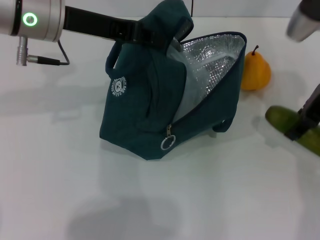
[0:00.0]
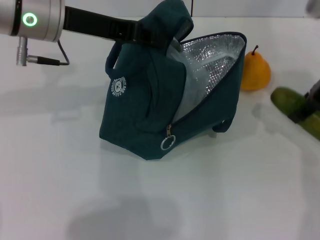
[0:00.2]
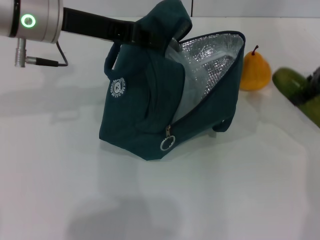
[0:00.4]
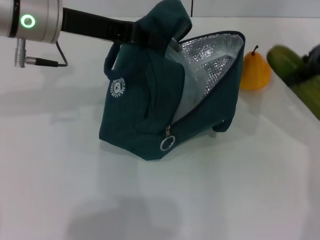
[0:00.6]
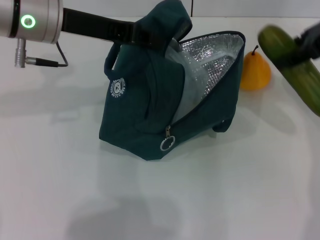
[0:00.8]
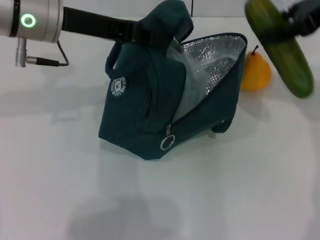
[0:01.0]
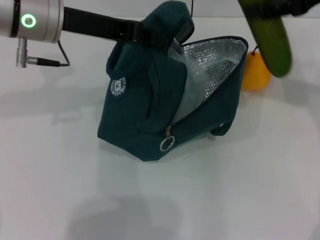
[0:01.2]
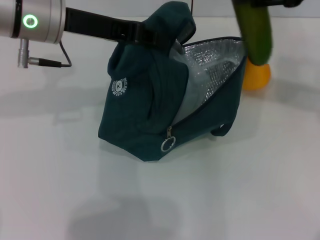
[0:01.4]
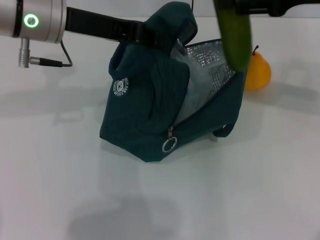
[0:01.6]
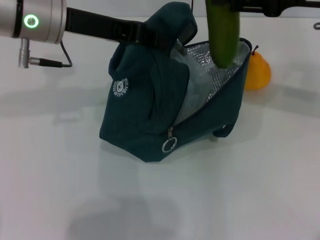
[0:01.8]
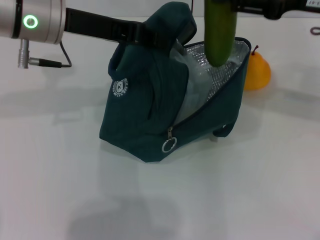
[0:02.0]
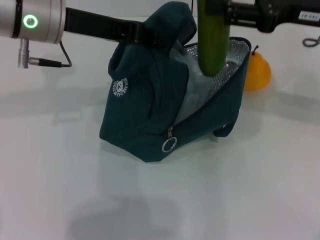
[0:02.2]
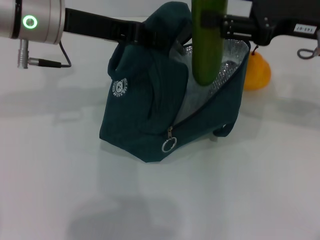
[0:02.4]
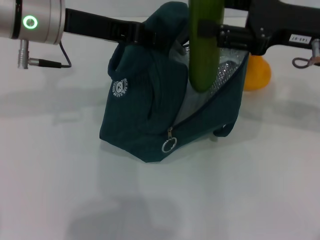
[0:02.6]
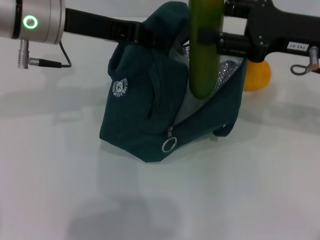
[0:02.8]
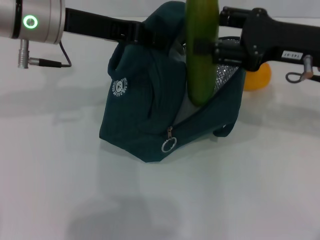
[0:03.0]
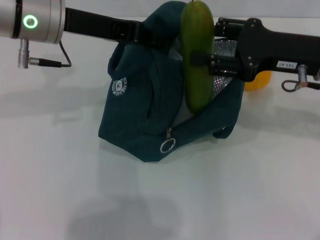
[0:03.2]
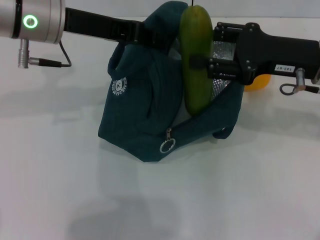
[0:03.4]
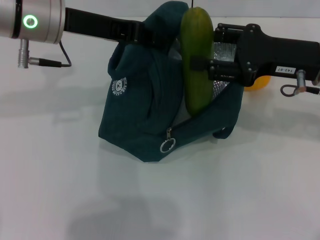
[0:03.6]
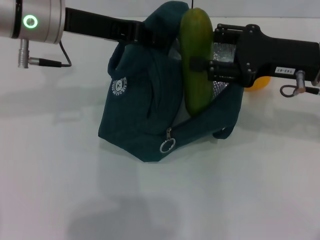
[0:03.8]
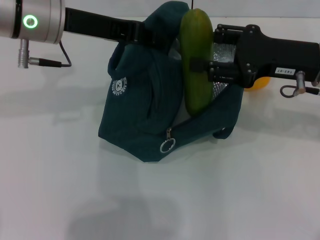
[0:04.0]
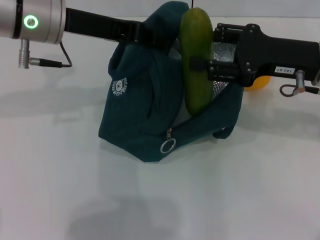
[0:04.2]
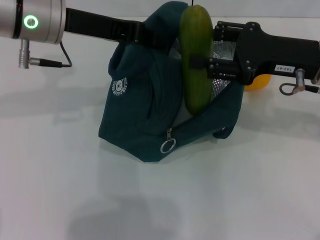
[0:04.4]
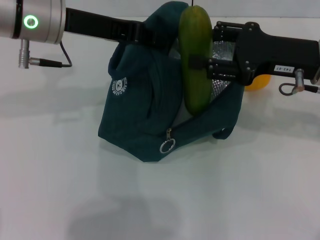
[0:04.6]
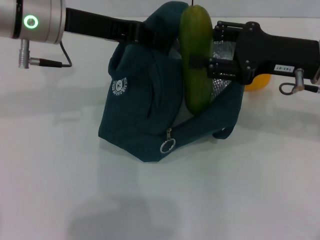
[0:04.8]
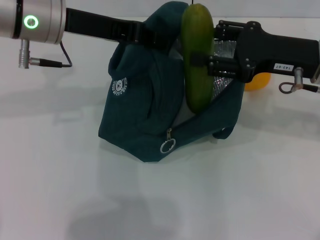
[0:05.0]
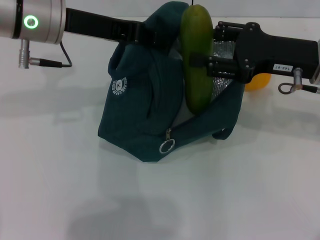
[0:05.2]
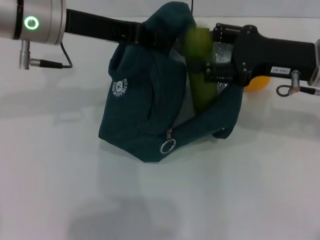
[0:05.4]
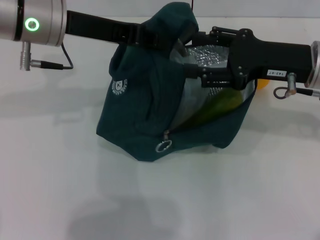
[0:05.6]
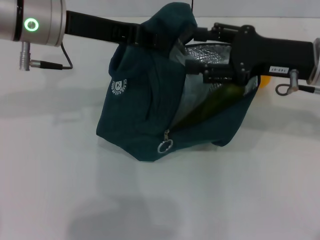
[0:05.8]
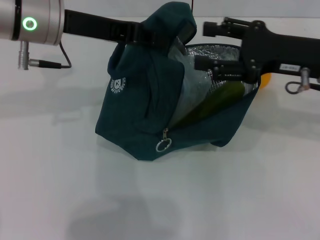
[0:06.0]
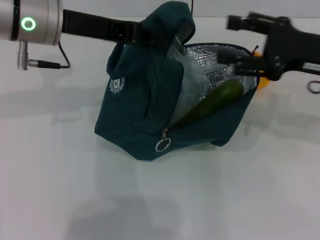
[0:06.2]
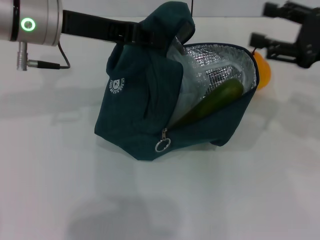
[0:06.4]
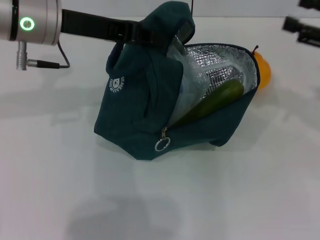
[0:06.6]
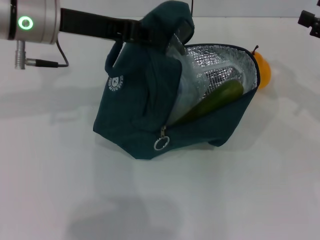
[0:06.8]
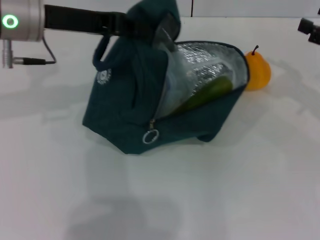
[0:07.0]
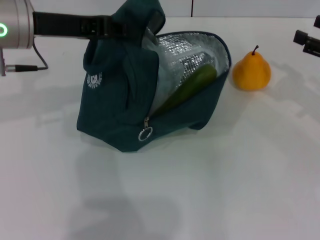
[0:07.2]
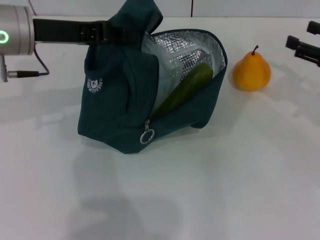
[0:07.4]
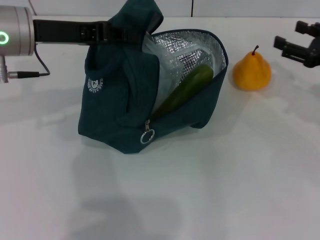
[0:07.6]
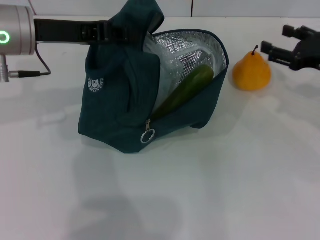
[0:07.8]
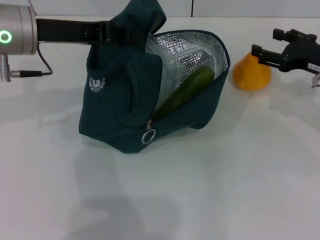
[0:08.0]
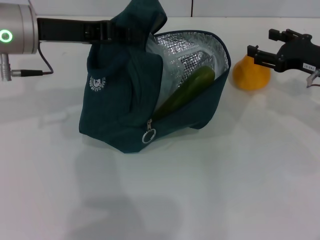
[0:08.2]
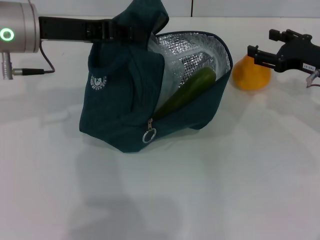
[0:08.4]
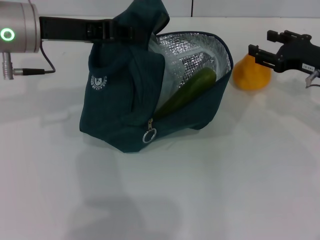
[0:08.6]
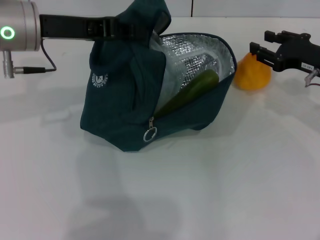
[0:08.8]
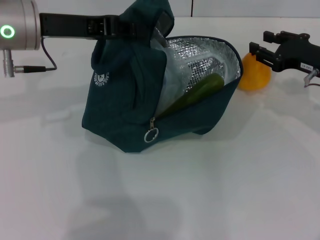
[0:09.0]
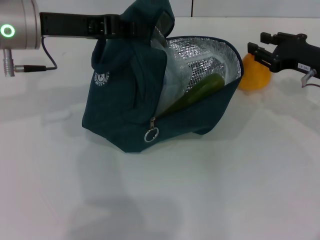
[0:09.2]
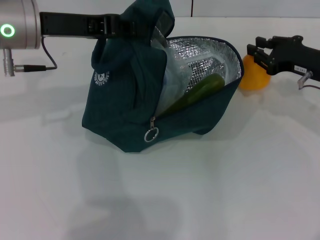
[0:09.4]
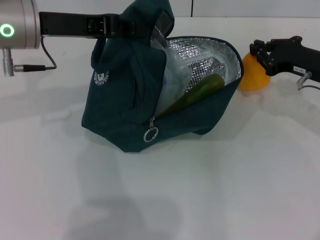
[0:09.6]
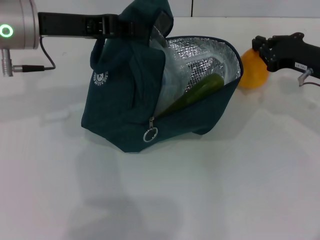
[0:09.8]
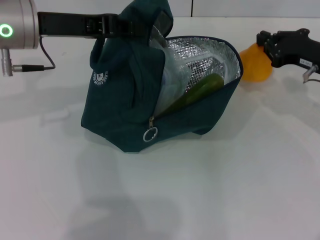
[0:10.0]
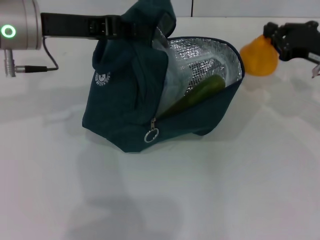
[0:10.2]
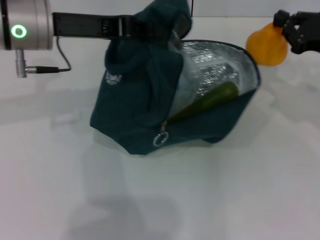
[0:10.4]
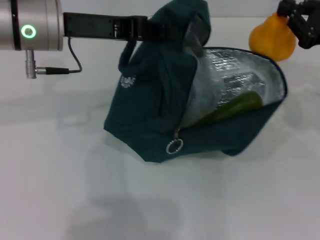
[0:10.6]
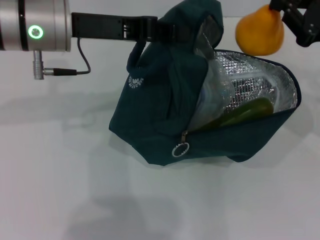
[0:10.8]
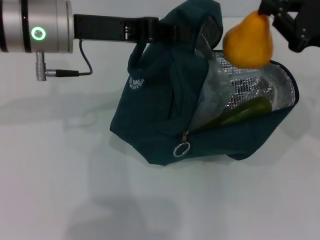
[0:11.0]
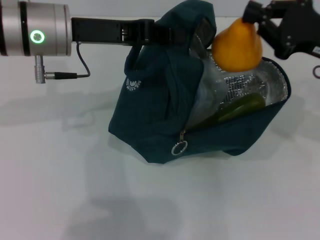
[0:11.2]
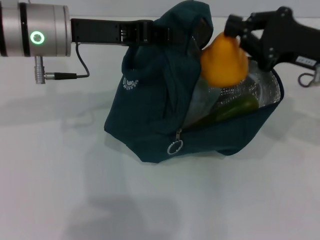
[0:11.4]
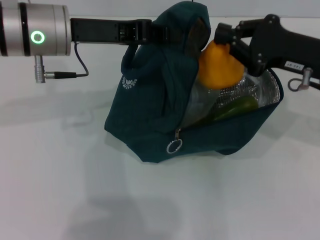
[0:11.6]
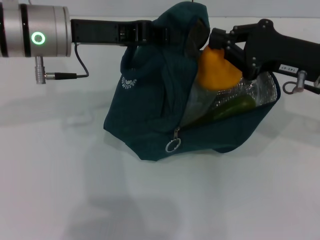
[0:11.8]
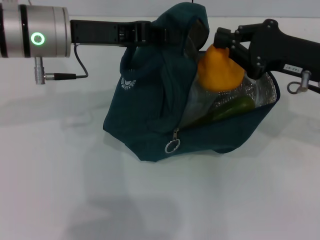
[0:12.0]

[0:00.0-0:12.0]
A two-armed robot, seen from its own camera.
Step, 0:00.0 to 0:05.4: Put the cucumber into the lunch bag with your right hand.
Step, 0:05.6 to 0:09.6: Grab the pear with your right hand.
0:00.0 to 0:01.6: The right gripper moves upward, some 5 cm.
0:01.6 to 0:03.0: The right gripper travels downward by about 10 cm.
0:03.0 to 0:04.4: The grippers stay close to where they were, moving slightly.
0:04.4 to 0:06.0: Both grippers stay about where they are.
0:06.0 to 0:07.6: The right gripper goes roughly 10 cm to the right and downward.
0:07.6 to 0:09.0: The grippers stay close to where they were, moving slightly.
0:09.0 to 0:10.4: The right gripper closes its fingers.
0:10.4 to 0:12.0: The right gripper shifts roughly 5 cm to the left.

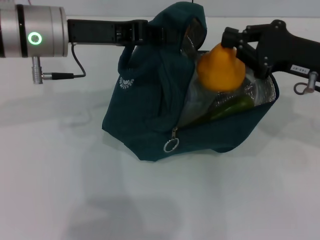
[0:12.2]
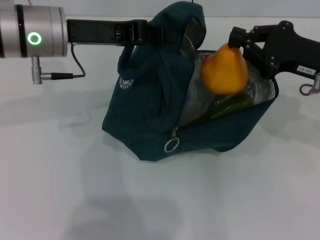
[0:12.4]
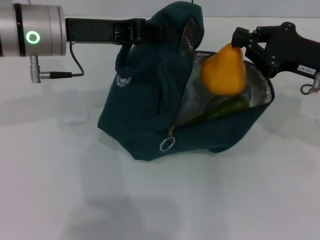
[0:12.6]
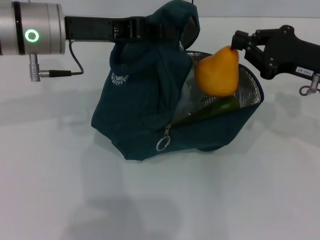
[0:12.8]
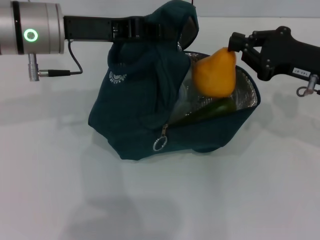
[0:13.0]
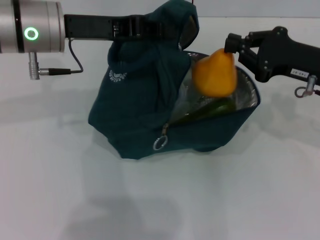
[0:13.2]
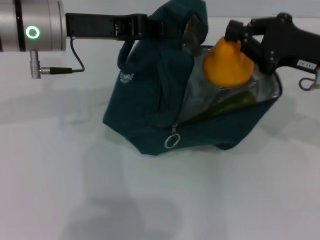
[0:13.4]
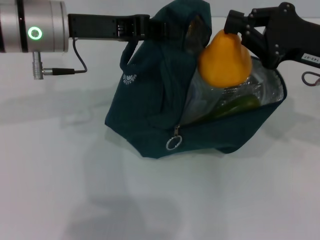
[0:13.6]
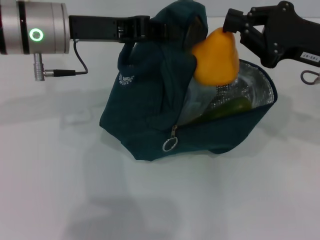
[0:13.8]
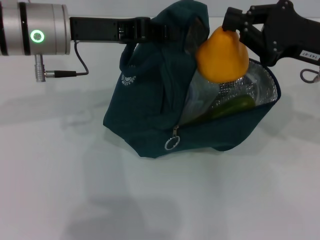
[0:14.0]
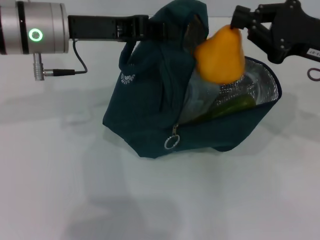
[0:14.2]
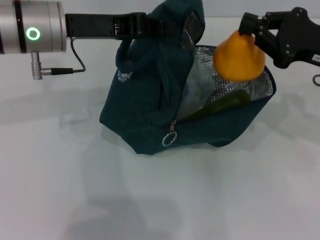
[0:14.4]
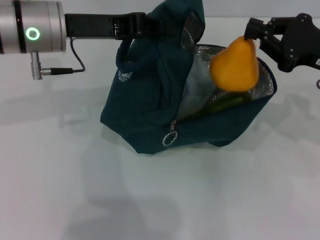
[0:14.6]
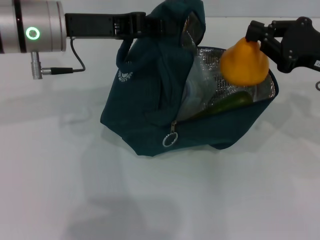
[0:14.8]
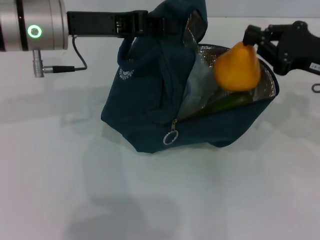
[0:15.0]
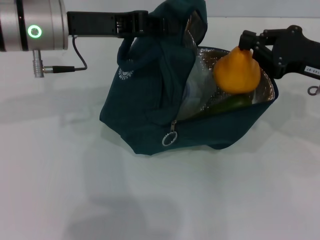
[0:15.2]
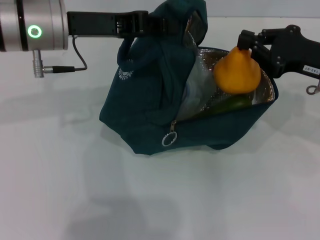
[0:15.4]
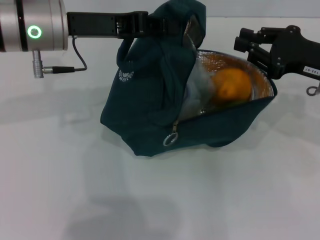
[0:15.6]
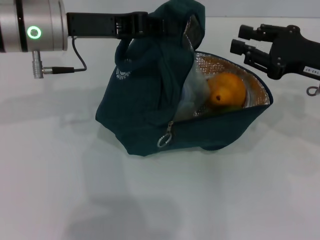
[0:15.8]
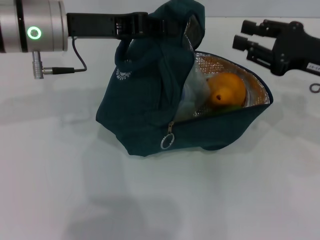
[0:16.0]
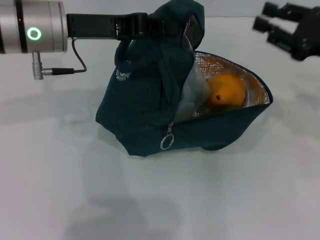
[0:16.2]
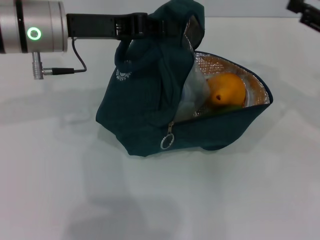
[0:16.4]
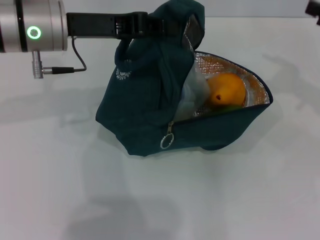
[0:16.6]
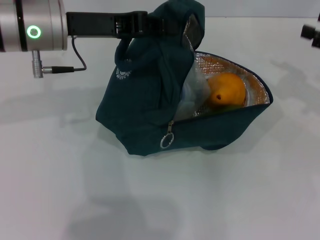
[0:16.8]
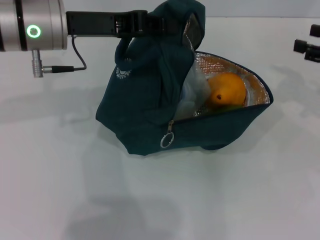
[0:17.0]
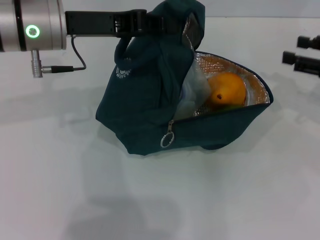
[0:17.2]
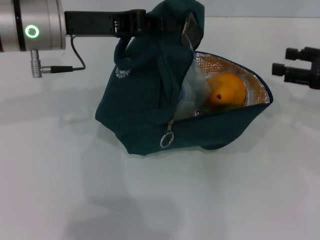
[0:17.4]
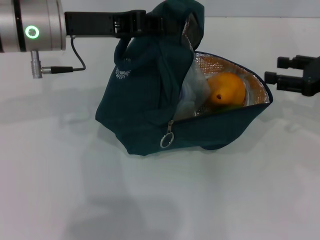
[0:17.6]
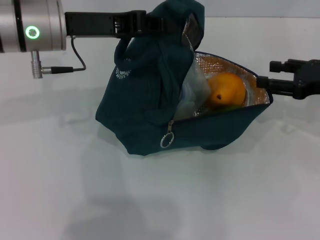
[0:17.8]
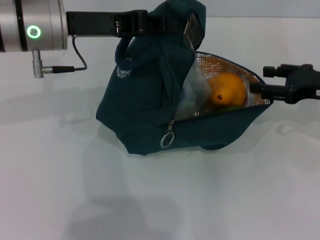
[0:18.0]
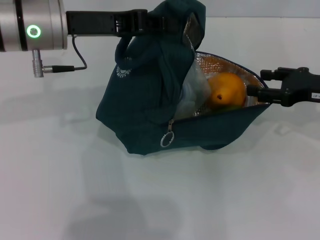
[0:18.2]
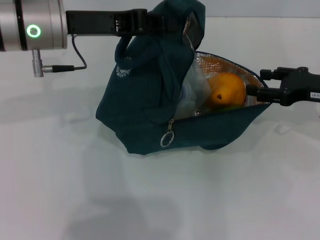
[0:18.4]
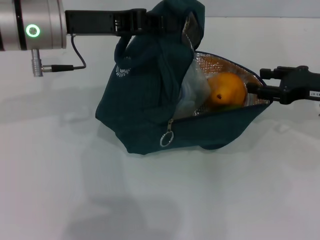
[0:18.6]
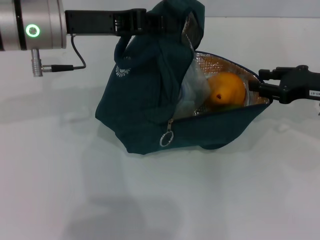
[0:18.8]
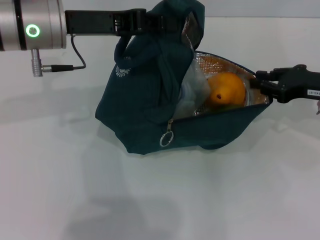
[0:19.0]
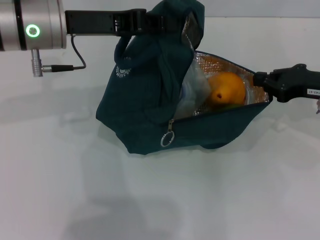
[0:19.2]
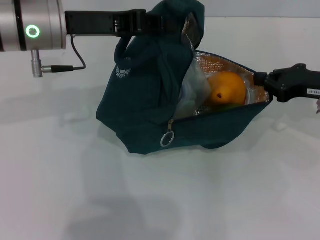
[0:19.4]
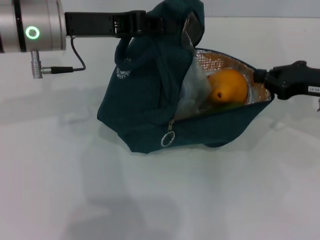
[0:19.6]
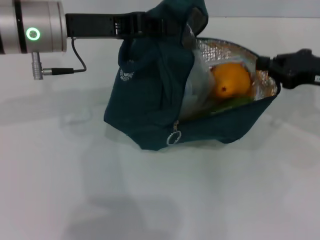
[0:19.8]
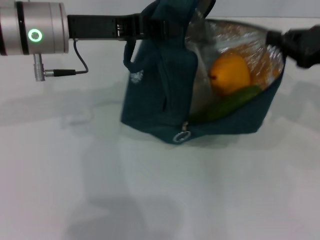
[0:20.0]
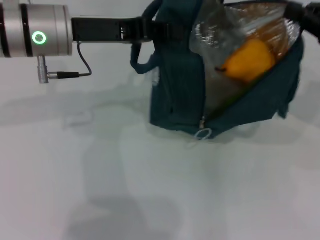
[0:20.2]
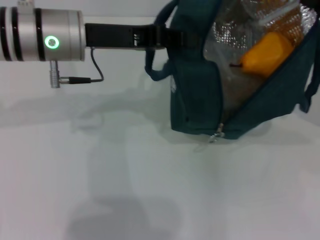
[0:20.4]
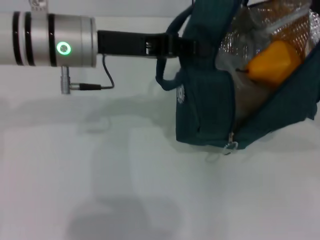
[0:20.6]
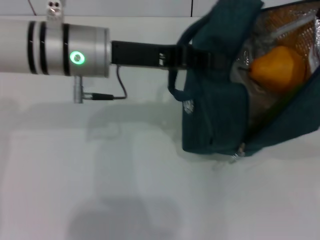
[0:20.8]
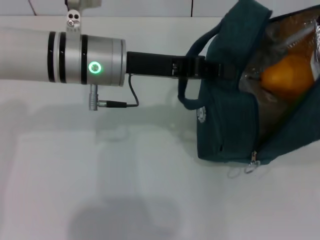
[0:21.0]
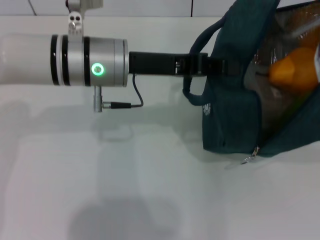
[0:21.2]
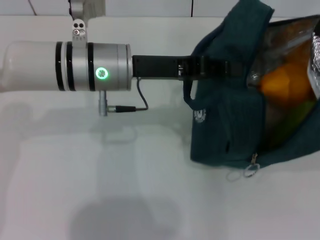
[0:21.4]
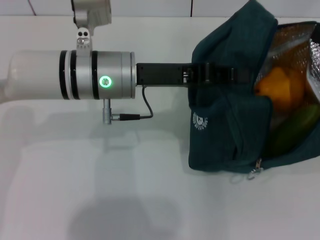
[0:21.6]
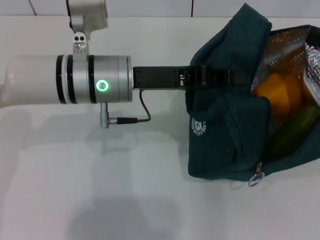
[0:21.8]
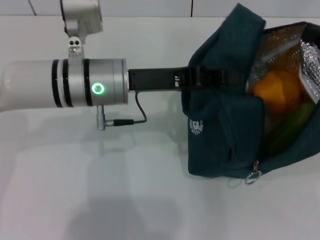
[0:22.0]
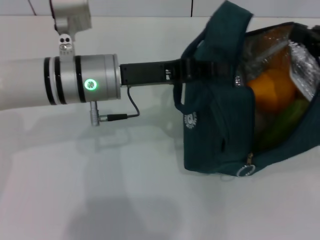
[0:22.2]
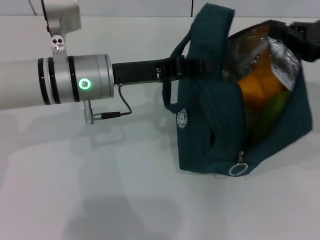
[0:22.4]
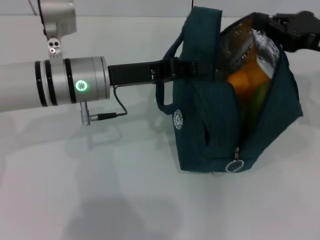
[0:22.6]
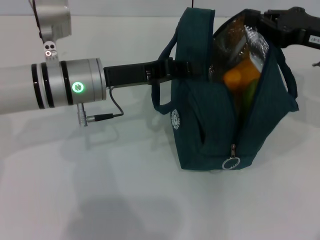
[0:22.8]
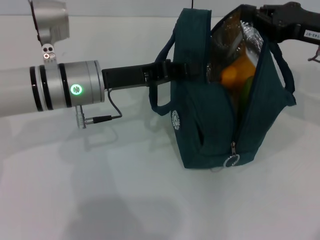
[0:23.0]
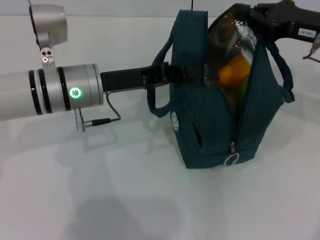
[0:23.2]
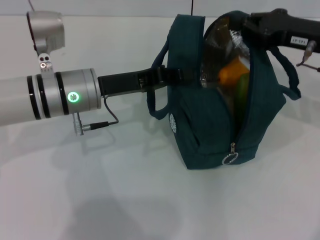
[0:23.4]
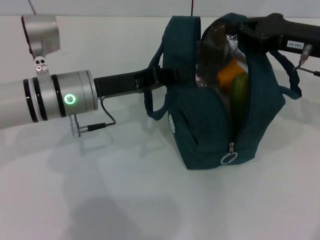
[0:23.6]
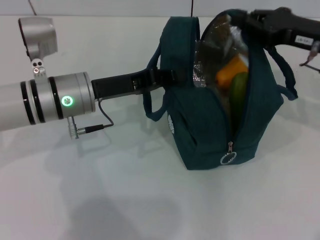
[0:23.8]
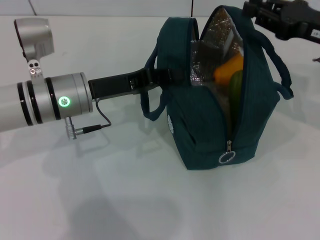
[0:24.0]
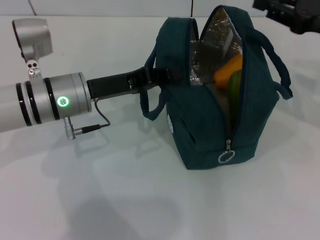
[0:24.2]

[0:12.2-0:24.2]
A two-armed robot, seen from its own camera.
Step, 0:12.2 to 0:15.6: Secure the lunch bag with your left hand.
Step, 0:15.8 to 0:23.8: Hold the lunch bag with your right hand.
0:12.2 to 0:15.2: The grippers stay close to where they were, moving slightly.
0:15.2 to 0:16.6: The right gripper goes some 10 cm to the right, and opens.
0:16.6 to 0:18.2: The right gripper goes some 10 cm to the left and downward.
0:18.2 to 0:19.8: The right gripper closes up.
0:19.8 to 0:21.2: The right gripper shifts some 10 cm to the right and upward; the left gripper heads to the right, covering about 5 cm.
0:21.2 to 0:22.6: The right gripper moves to the left and forward, some 10 cm.
